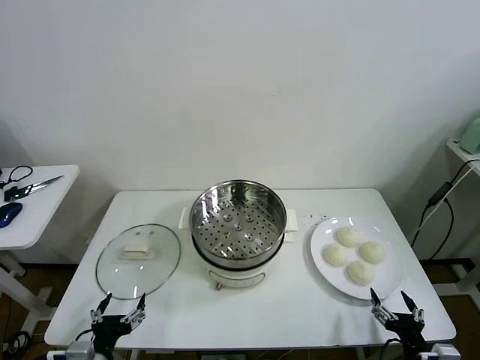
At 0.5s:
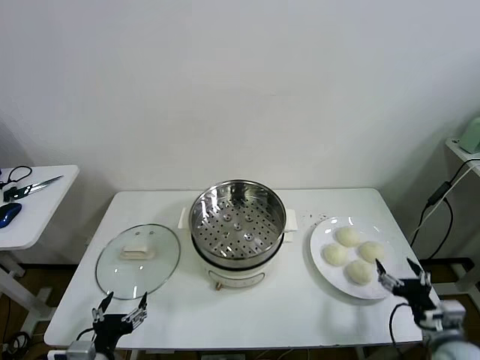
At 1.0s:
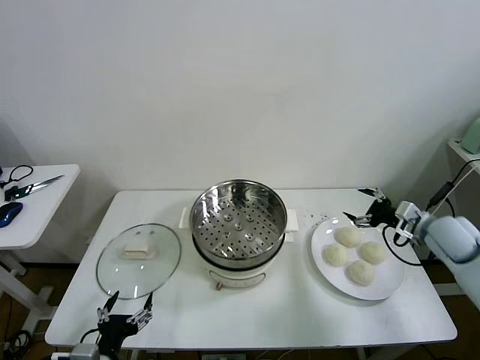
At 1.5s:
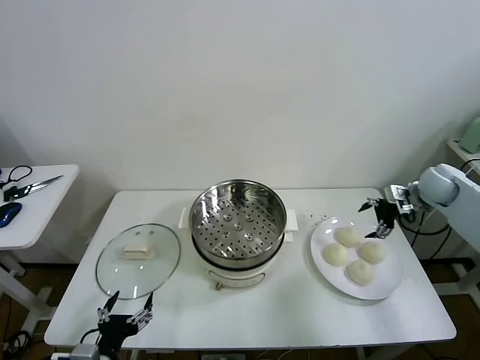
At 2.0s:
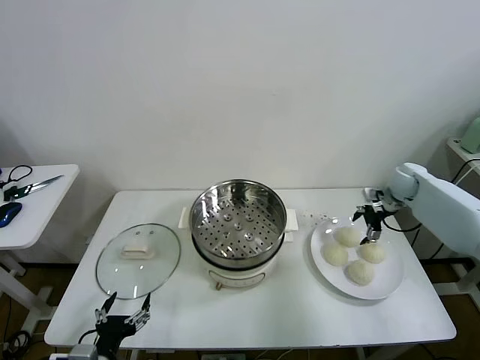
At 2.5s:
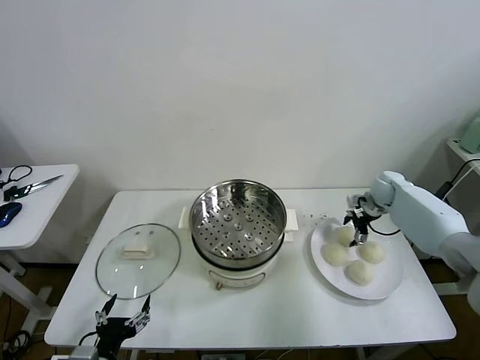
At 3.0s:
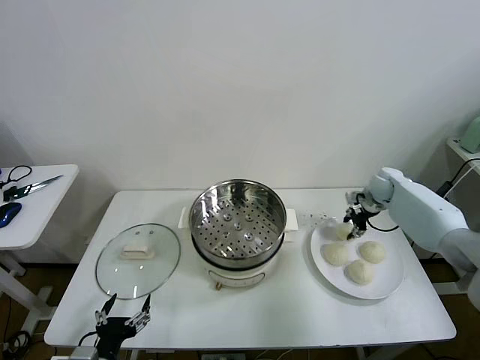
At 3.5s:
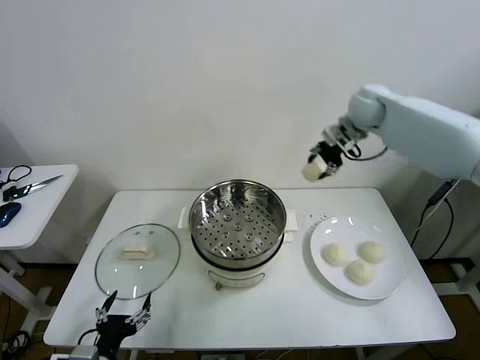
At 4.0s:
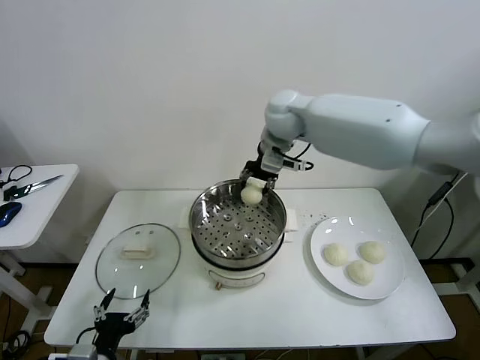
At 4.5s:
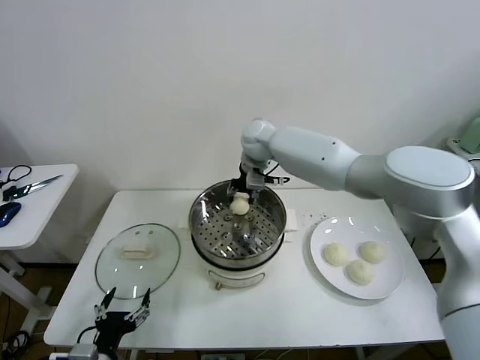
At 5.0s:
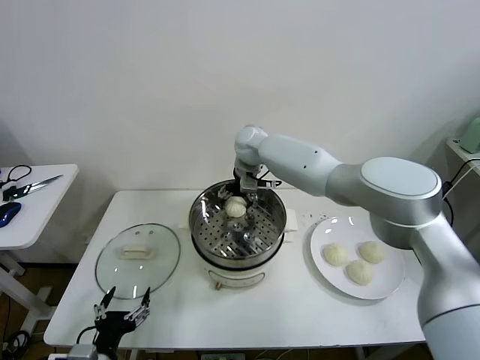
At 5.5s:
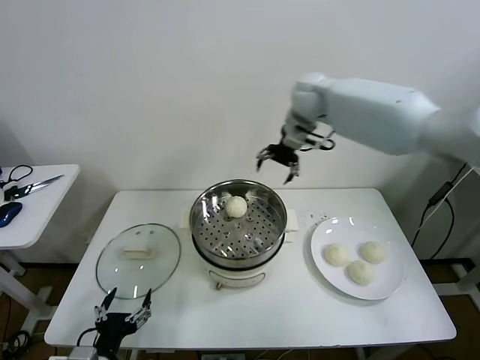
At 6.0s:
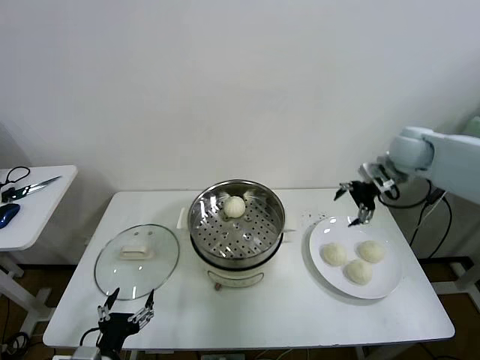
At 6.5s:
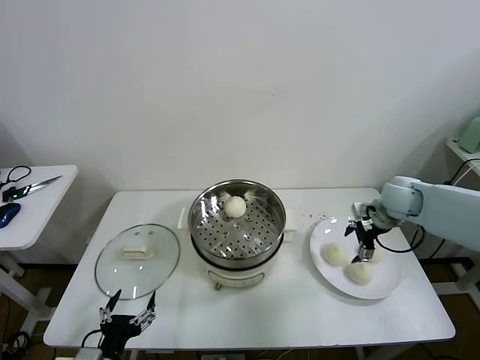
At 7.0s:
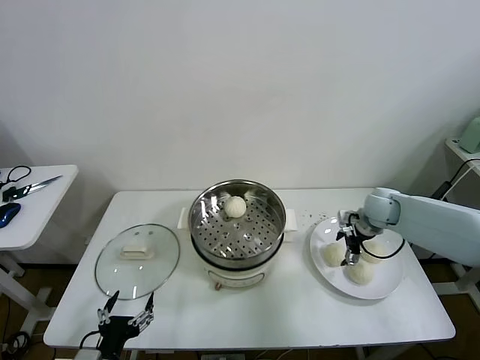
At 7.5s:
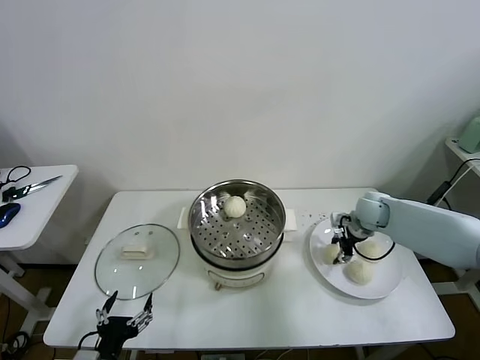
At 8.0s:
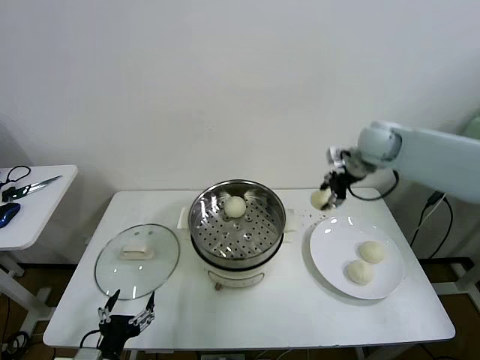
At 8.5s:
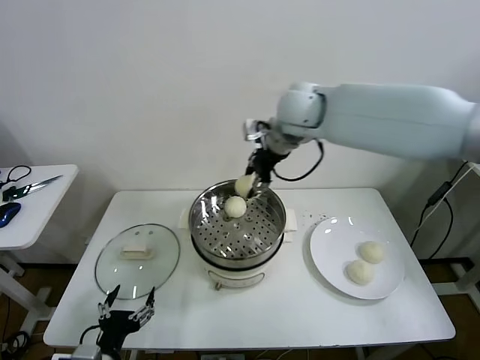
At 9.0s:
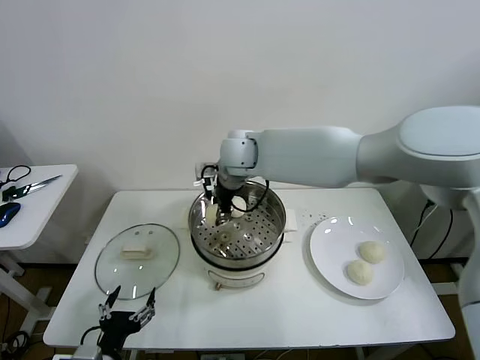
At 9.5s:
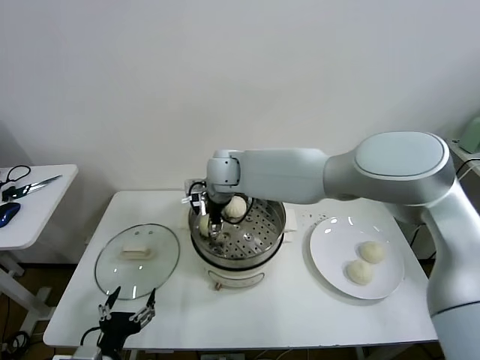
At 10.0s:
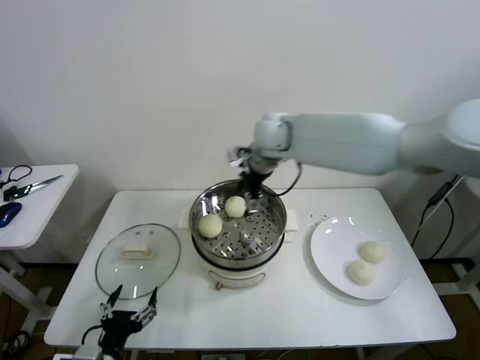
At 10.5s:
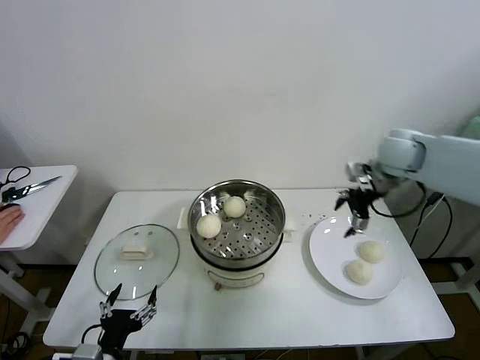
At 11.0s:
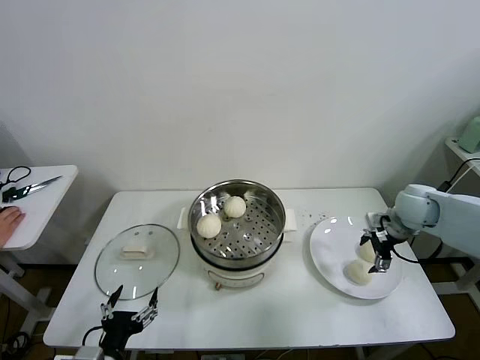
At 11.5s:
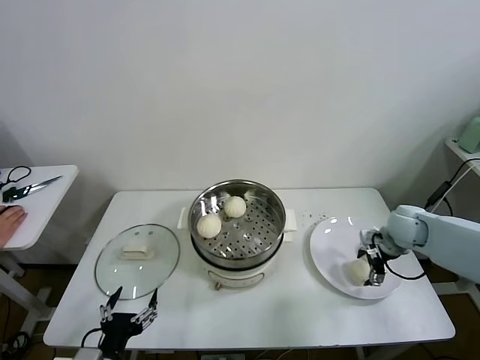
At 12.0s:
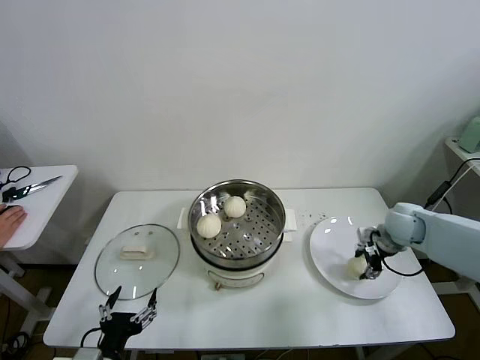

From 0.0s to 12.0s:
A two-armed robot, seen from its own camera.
Task of the whole recording: take steamed baozi put them in steamer then cover it.
Step, from 0.0s to 2.5s: Grasp the baozi in the plate with right gripper.
Step, from 3.0s to 5.0s: Place the baozi on the steamer with right gripper.
Step, from 5.5s to 7.0s: Grasp the baozi in the plate with right gripper.
Step, from 7.5s to 9.5s: Place the baozi on the steamer with right gripper.
Step, from 10.0s to 11.5s: Grasp the baozi in the plate with right gripper.
From 2.0s to 4.0s: The right gripper heads to the left and upward, covering about 40 cm, and closes its fingers.
From 4.0s to 6.0s: The right gripper is displaced to the right by approximately 30 cm, and opens.
From 6.0s to 8.0s: The right gripper moves to the left and upward, about 15 cm, and closes up.
From 8.0s to 10.0s: The right gripper shifts about 10 cm to the left, and opens.
From 10.0s to 12.0s: The right gripper shifts about 30 cm to the right and downward, and closes its fingers.

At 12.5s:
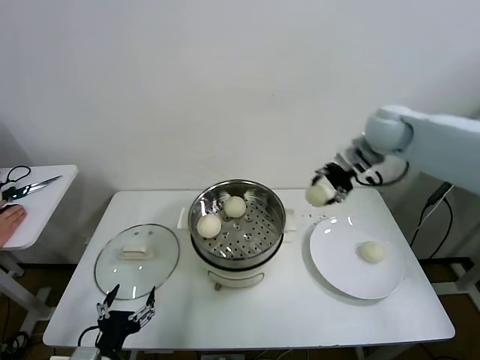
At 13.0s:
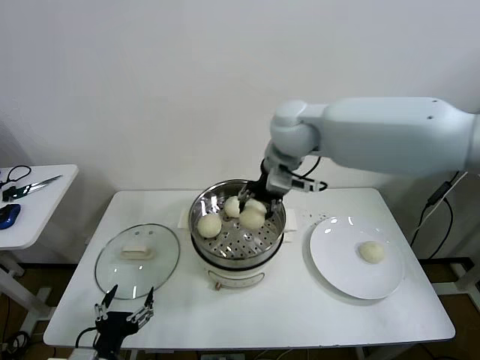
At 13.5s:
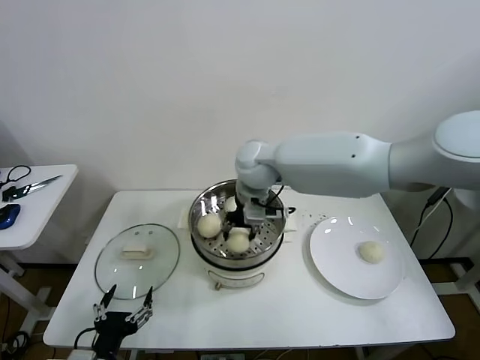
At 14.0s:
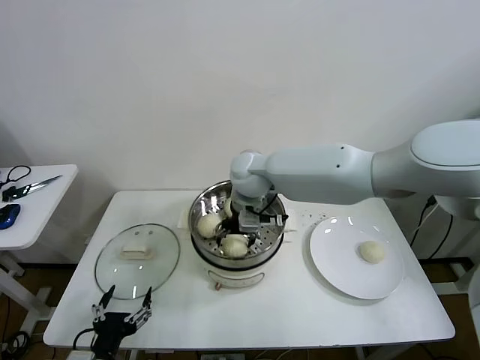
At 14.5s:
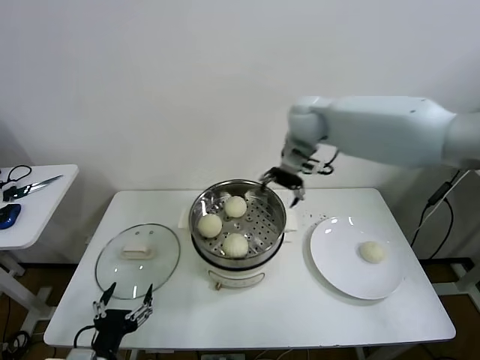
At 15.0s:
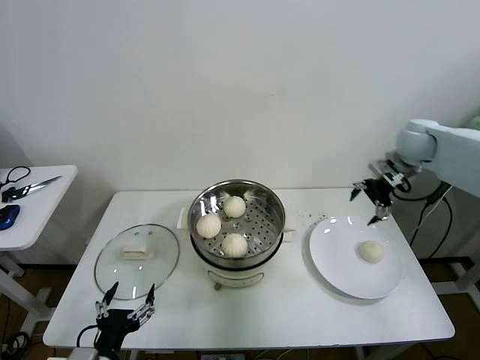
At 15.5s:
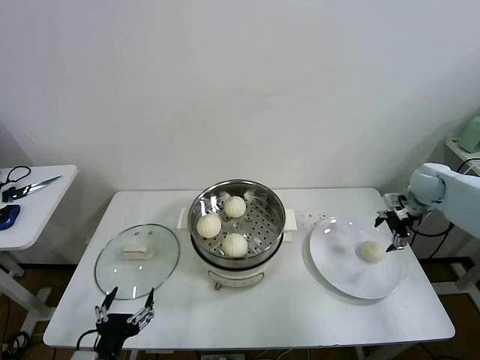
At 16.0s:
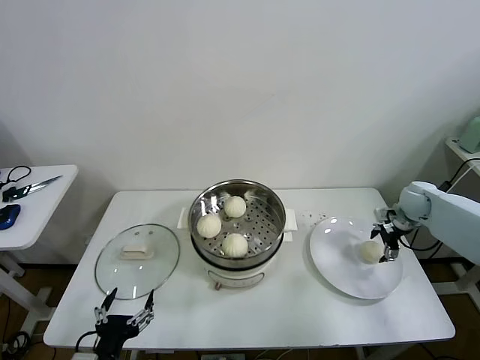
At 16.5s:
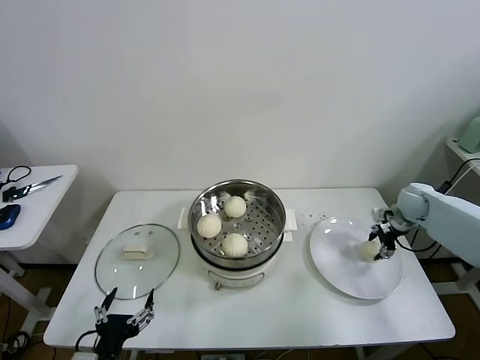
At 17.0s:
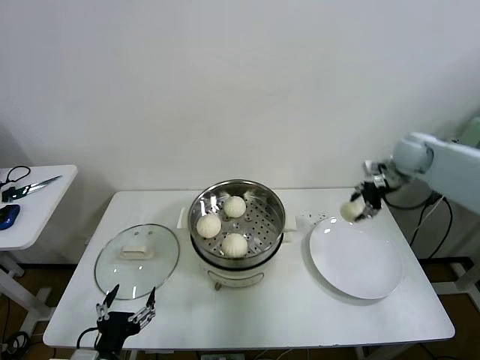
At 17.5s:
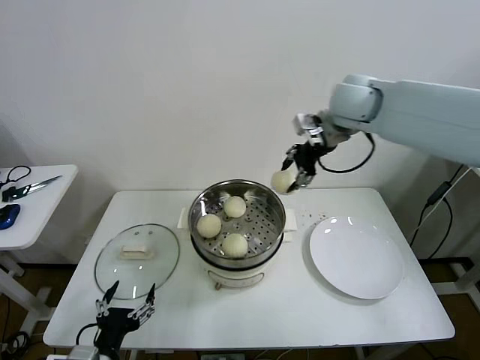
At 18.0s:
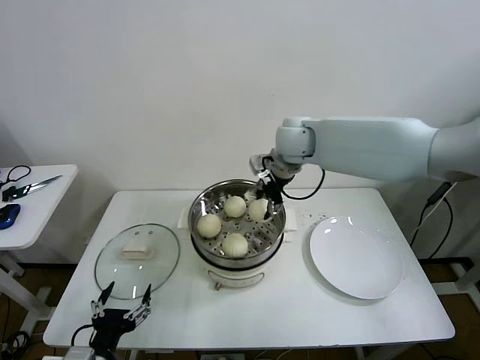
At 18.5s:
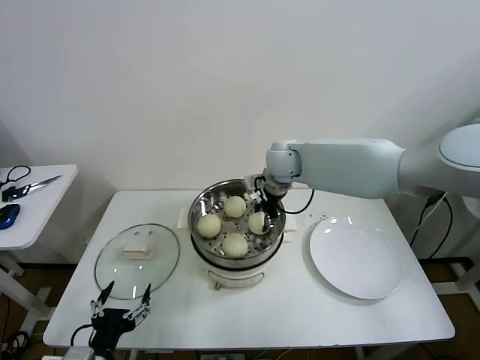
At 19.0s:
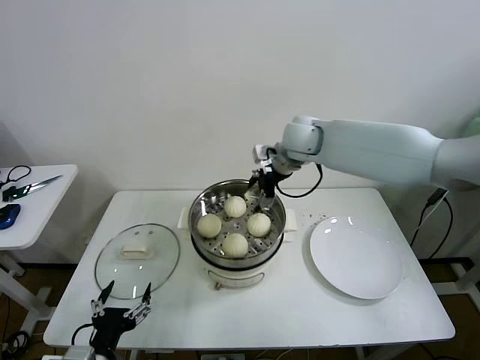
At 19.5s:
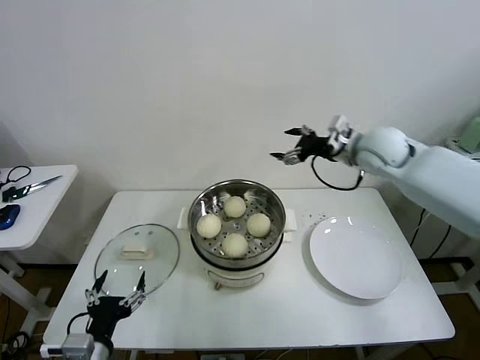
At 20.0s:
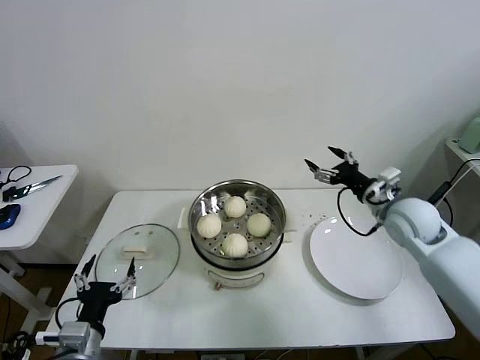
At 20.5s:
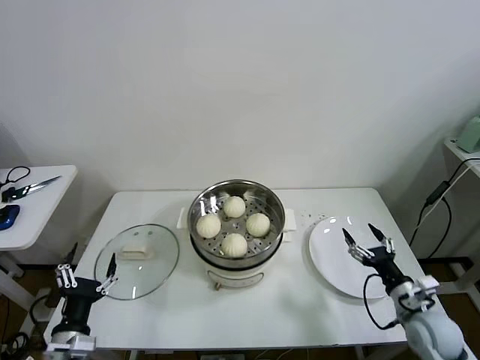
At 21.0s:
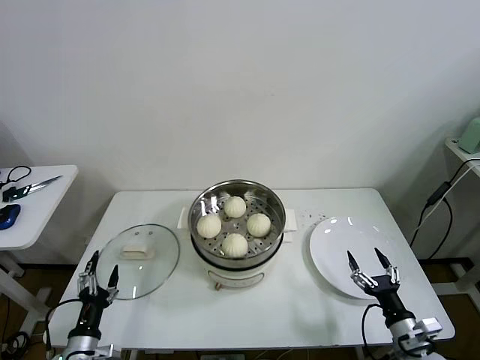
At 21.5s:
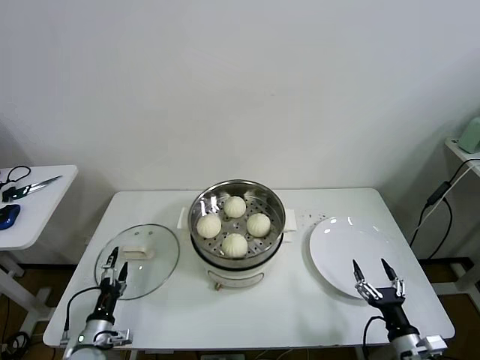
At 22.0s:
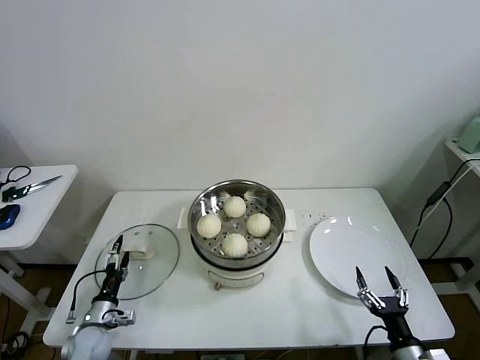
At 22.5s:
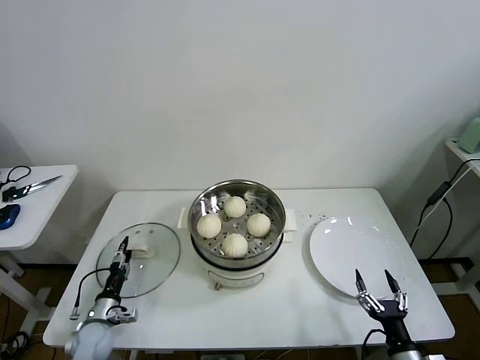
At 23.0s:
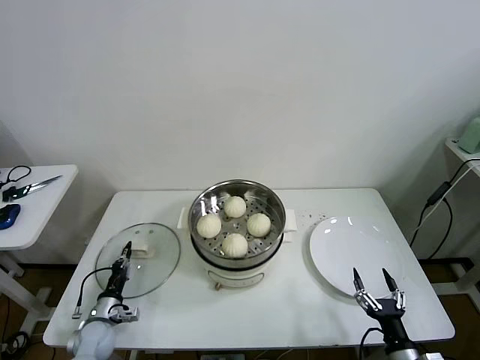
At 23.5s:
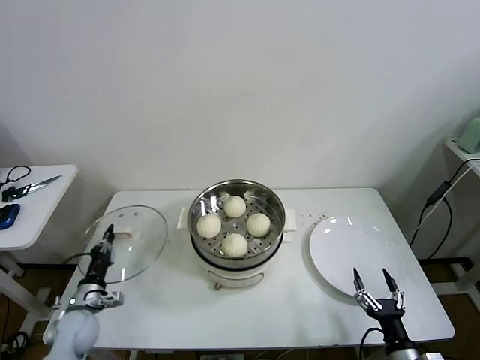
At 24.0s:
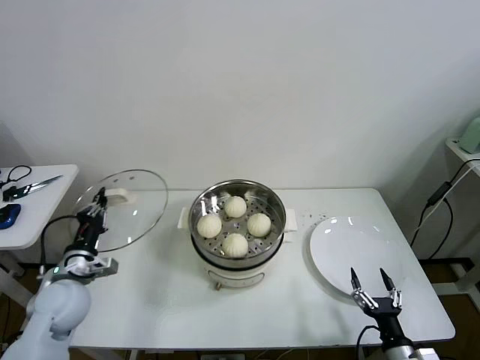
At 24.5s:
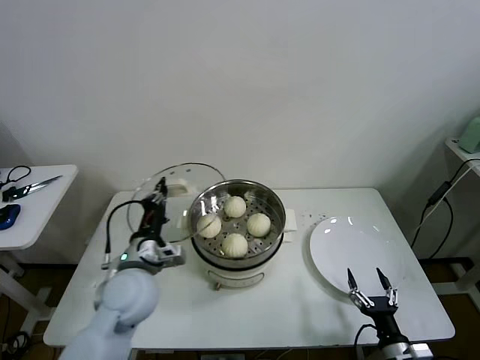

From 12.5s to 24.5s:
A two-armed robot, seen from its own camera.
Task of the whole recording: take steamed baozi put them in steamer then cover it.
Step, from 12.5s to 14.0s: Place the baozi on the steamer with right gripper.
Step, from 14.5s to 16.0s: Grasp the baozi in the plate with right gripper.
Step, from 16.5s to 18.5s: Place the baozi on the steamer with right gripper.
Step, from 19.0s to 23.0s: Grasp the pot lid with left gripper.
From 12.5s to 14.5s: The right gripper travels to the left and back again, about 20 cm each way, and opens.
From 14.5s to 16.5s: The right gripper travels to the right and downward by some 35 cm, and closes.
From 16.5s to 18.5s: The right gripper is displaced to the left by some 35 cm.
From 18.5s to 20.5s: The left gripper moves to the left, about 5 cm. The right gripper is displaced backward, to the right and downward by some 50 cm, and opens.
From 20.5s to 22.5s: The left gripper is displaced downward and forward by approximately 20 cm, while the right gripper heads backward and downward, covering roughly 15 cm.
From 22.5s to 24.5s: The left gripper moves upward and to the right, some 30 cm, and closes up.

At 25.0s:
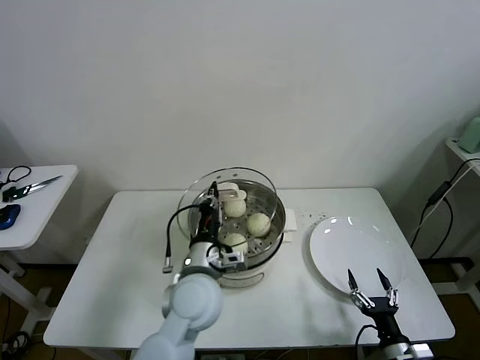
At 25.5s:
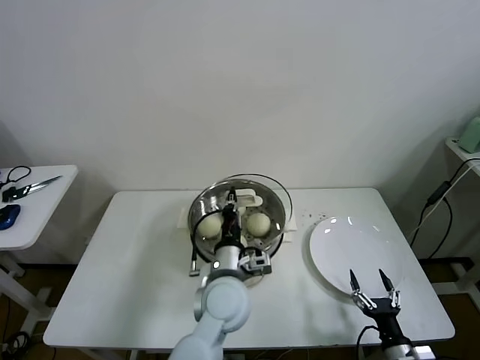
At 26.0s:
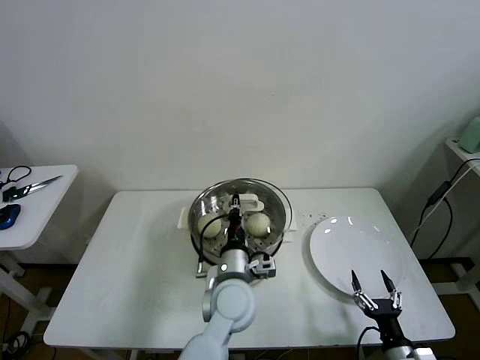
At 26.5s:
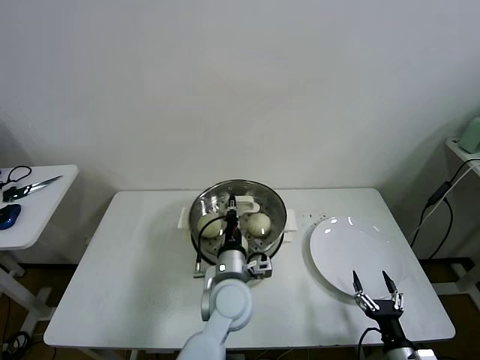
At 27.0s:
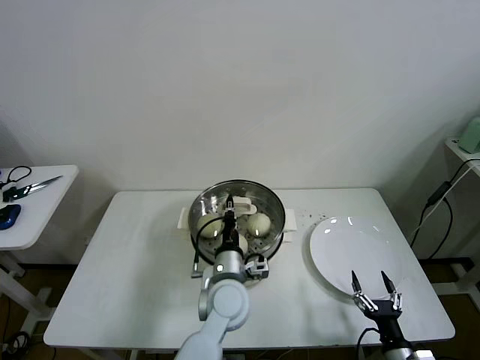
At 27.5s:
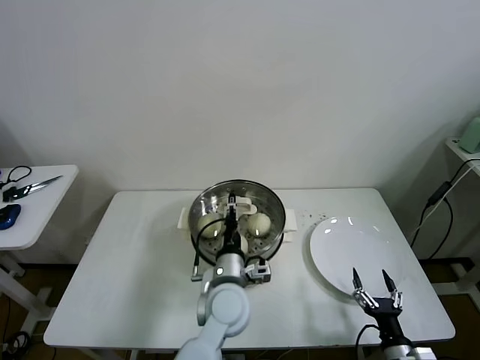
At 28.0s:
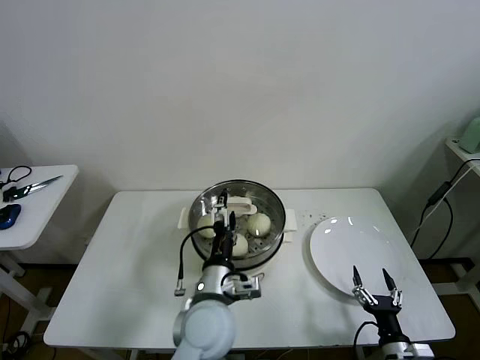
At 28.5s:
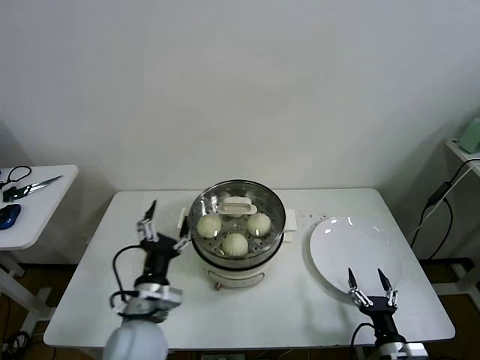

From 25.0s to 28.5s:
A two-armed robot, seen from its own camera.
Task of the whole recording: take steamed baozi put them in steamer then cover it.
Step, from 25.0s to 27.5s: Place the pot lid on the steamer with left gripper.
From 25.0s to 27.0s: The left gripper goes roughly 10 cm to the right and downward.
From 27.0s to 28.5s: The left gripper heads to the left and backward, covering approximately 15 cm, and opens up.
